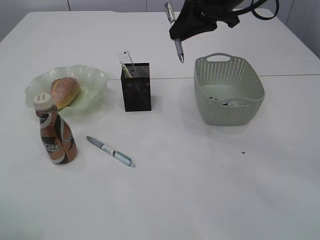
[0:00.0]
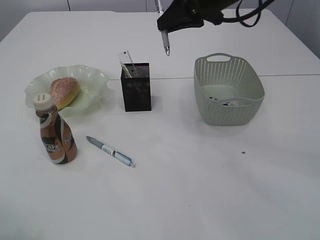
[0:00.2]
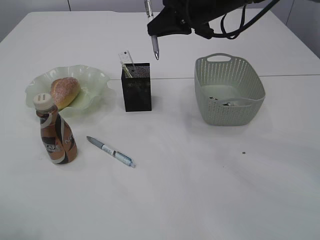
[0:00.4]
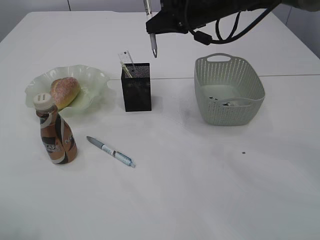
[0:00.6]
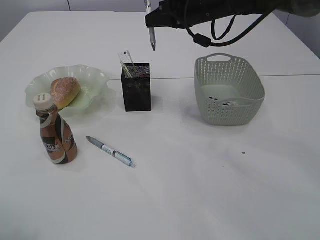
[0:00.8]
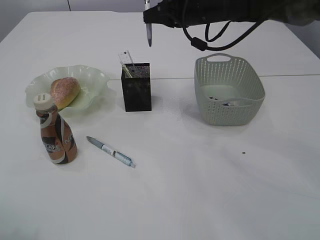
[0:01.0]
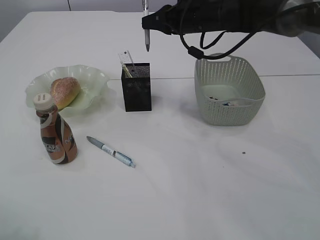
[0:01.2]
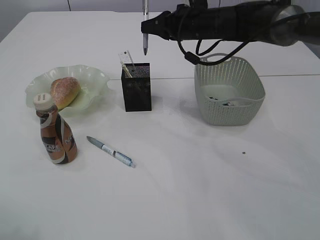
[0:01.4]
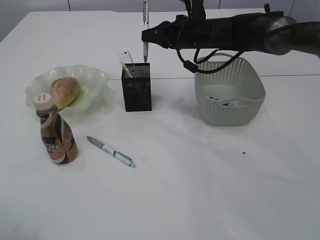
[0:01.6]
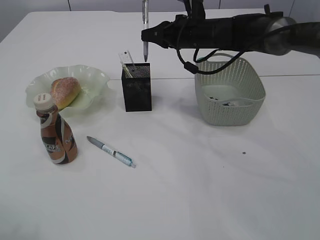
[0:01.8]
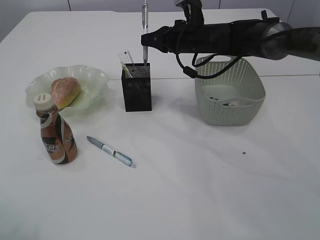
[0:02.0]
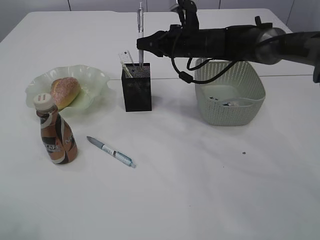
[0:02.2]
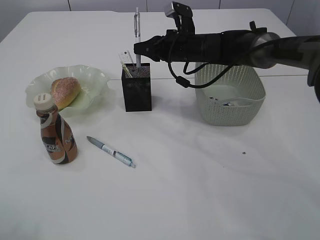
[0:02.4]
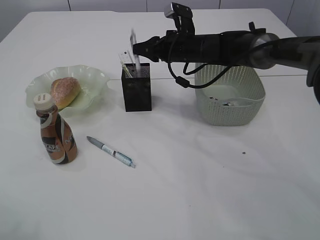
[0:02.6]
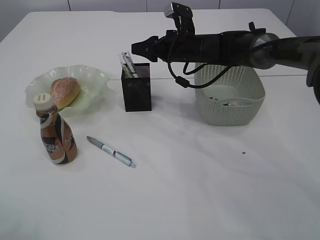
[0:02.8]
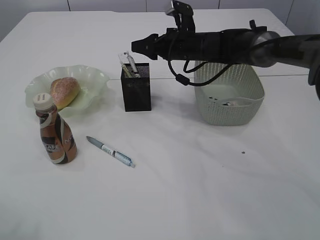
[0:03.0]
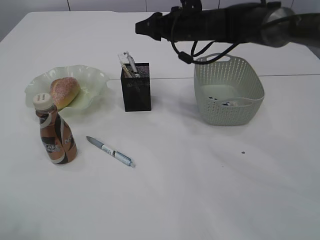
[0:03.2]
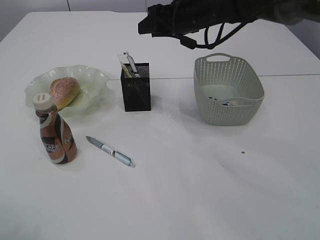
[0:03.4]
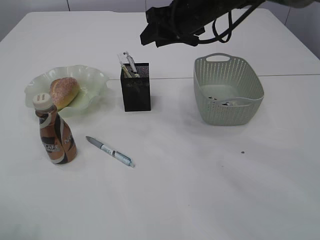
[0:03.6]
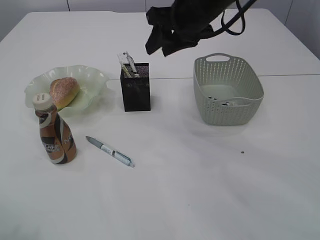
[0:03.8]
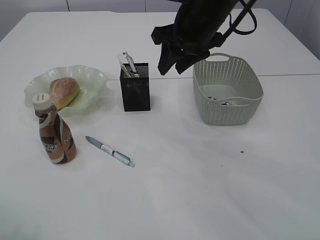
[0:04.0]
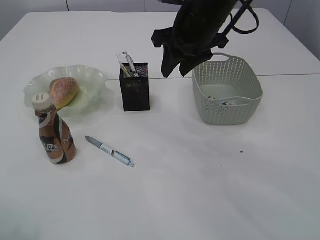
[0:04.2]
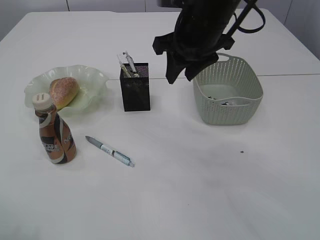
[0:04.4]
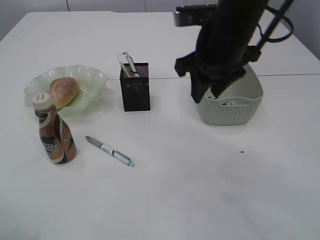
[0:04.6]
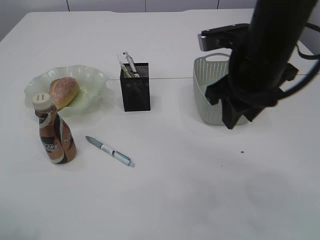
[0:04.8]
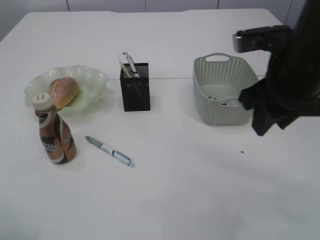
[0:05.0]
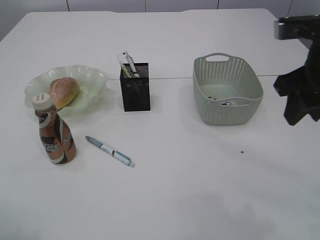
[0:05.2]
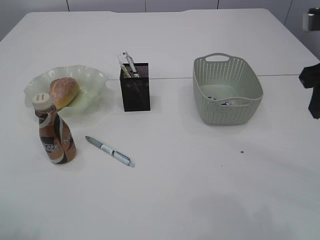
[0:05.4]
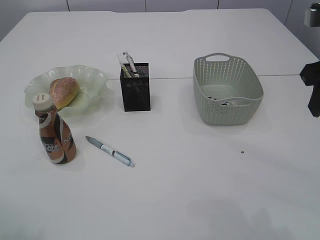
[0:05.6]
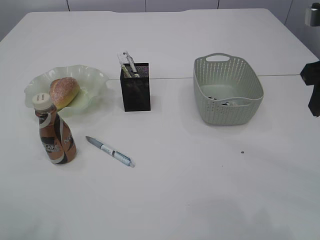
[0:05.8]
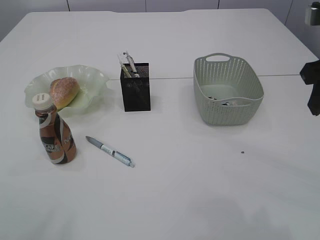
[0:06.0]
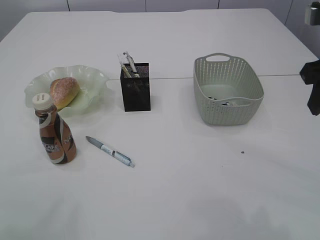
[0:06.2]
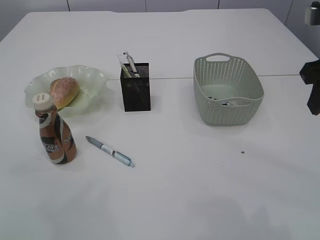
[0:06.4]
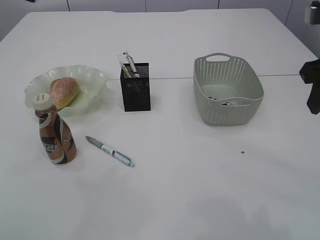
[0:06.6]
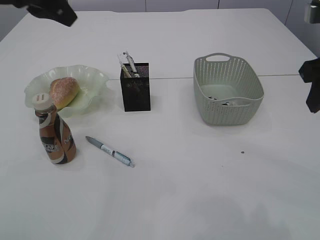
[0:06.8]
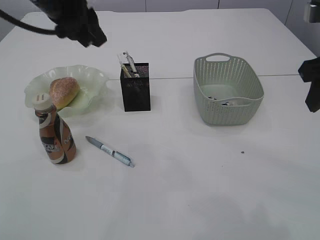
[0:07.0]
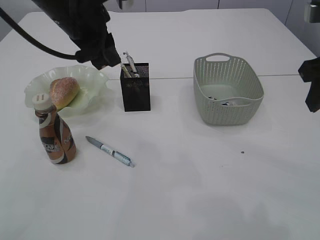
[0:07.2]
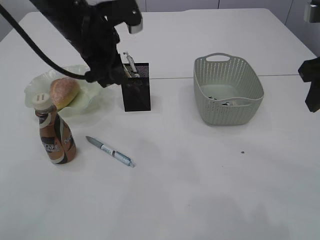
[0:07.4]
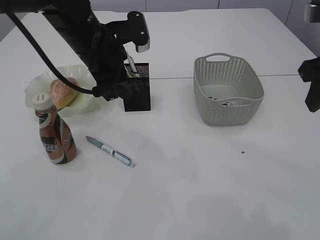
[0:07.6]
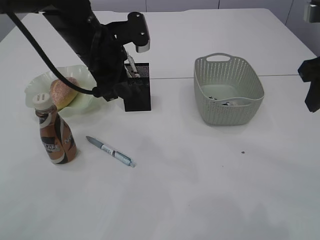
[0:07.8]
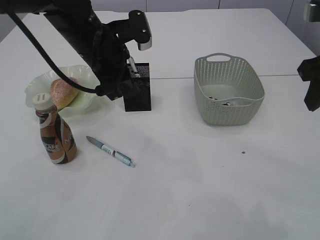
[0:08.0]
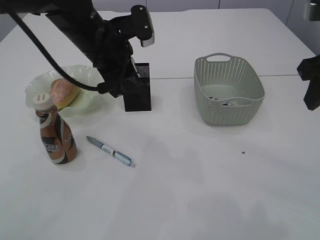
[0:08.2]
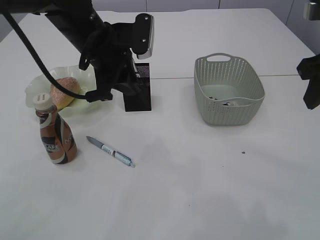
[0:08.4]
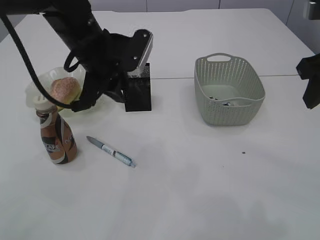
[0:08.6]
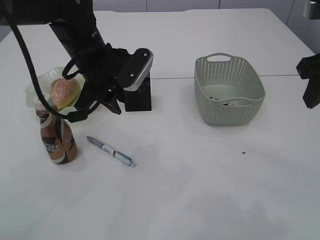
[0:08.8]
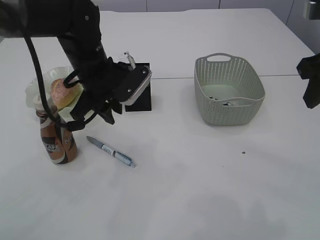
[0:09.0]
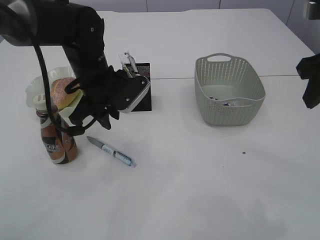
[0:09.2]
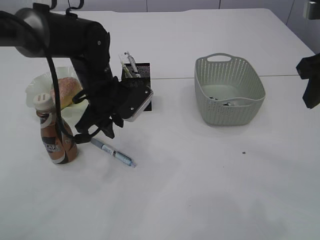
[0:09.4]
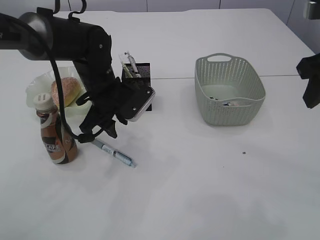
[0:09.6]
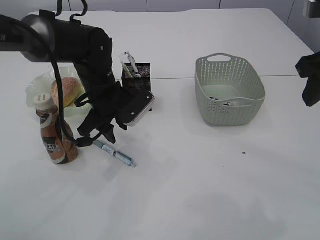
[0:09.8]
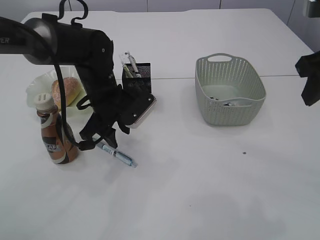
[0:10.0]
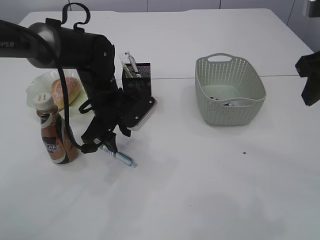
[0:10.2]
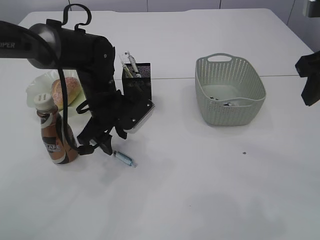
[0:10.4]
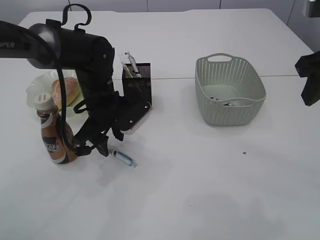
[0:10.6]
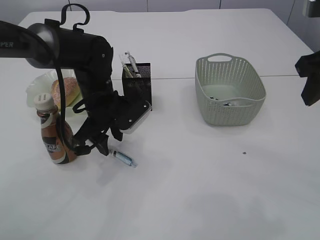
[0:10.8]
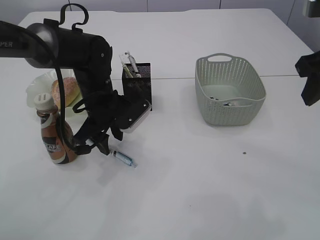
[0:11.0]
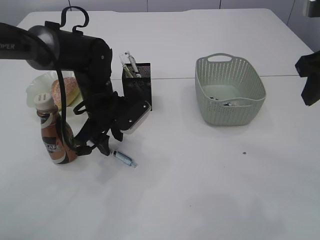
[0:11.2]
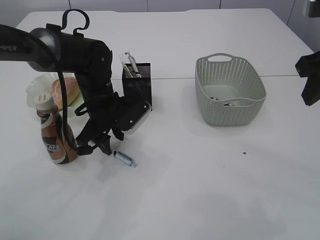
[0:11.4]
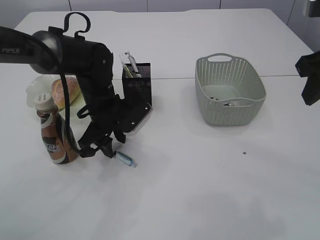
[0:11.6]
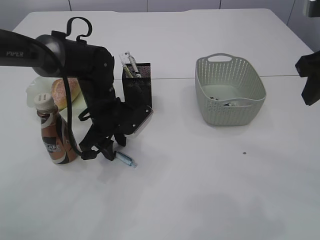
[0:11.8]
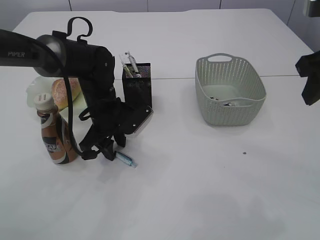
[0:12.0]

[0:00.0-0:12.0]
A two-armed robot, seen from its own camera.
Step, 0:00.0 to 0:03.4: Place the pen into the pen holder.
0:00.0 to 0:01.6: The right gripper travels downward and forward by some 15 cm.
0:01.6 to 0:03.0: The right gripper opens up.
0:03.0 to 0:04.4: The right gripper moves backward and upward, roughly 15 cm.
0:04.4 to 0:06.0: The right gripper travels to the right and backward by roughly 20 cm. Meanwhile the left gripper is displaced upward by approximately 10 cm.
0:06.0 to 0:07.6: The left gripper is displaced to the right, forward and downward by some 30 cm.
0:07.6 to 0:09.0: The left gripper is displaced downward by roughly 5 cm.
0:09.0 to 0:10.4: The left gripper goes some 5 cm downward, and opens.
0:10.4 to 0:12.0: The grippers make only small movements.

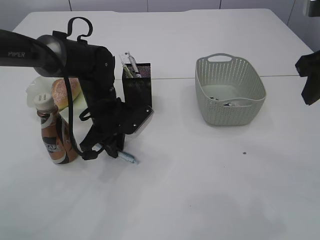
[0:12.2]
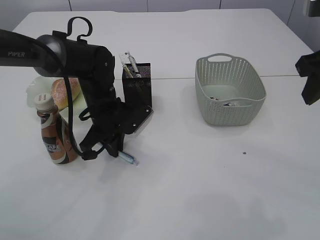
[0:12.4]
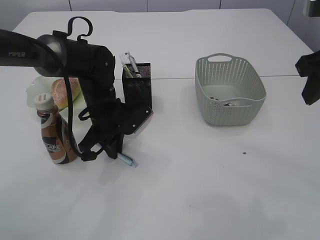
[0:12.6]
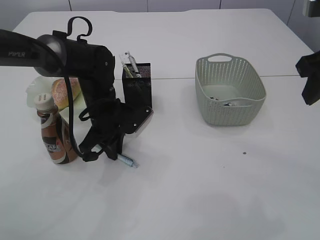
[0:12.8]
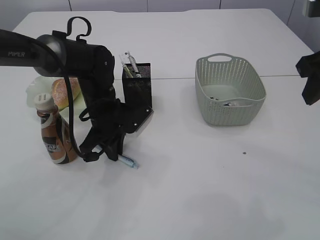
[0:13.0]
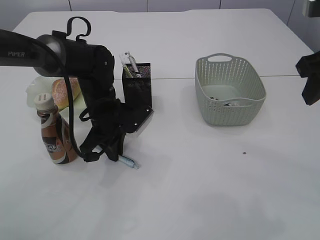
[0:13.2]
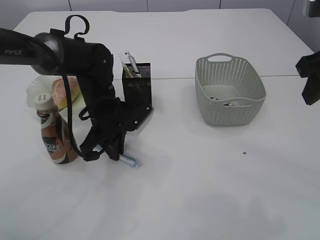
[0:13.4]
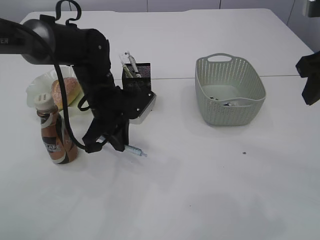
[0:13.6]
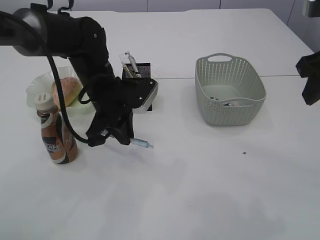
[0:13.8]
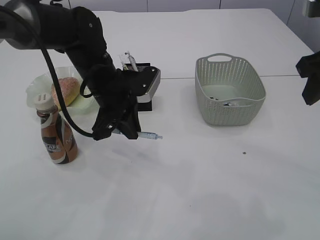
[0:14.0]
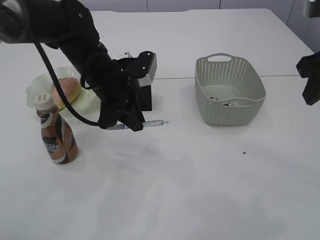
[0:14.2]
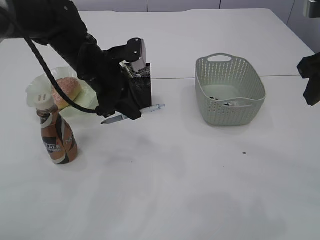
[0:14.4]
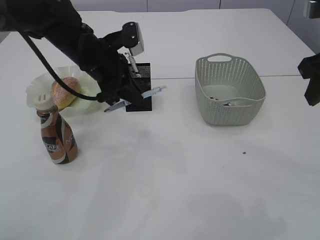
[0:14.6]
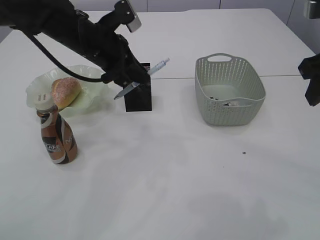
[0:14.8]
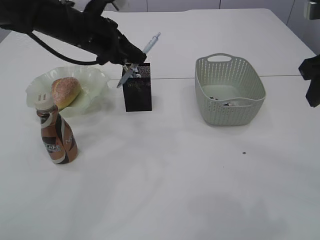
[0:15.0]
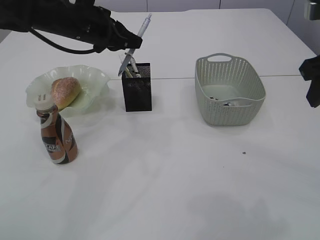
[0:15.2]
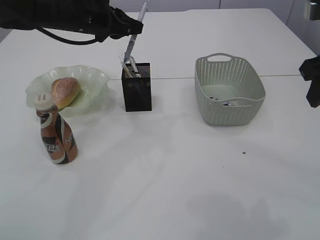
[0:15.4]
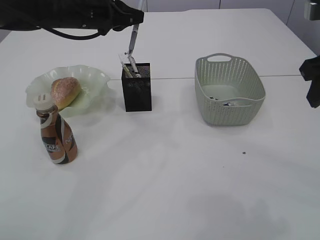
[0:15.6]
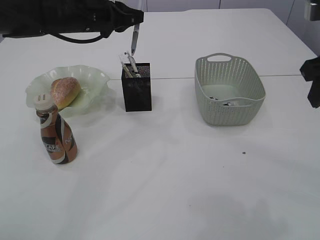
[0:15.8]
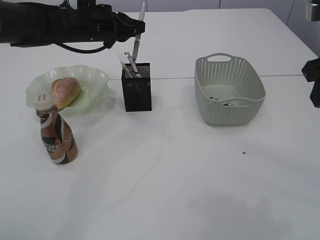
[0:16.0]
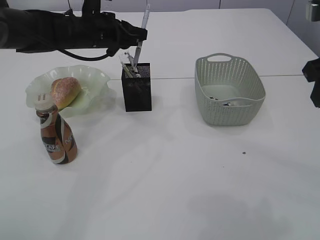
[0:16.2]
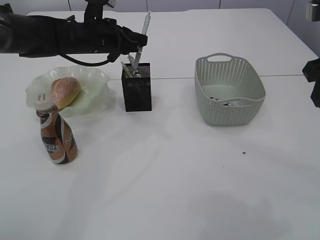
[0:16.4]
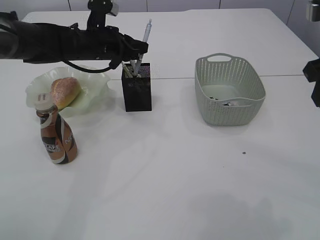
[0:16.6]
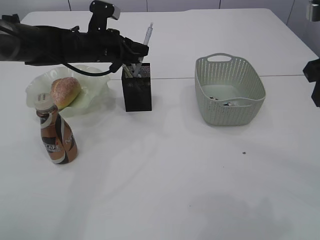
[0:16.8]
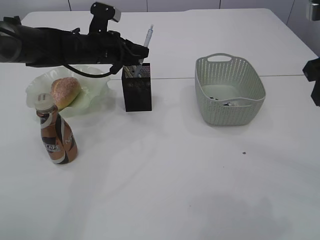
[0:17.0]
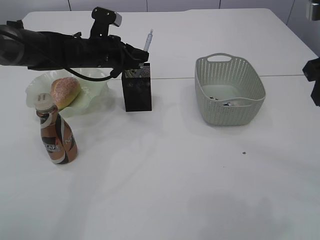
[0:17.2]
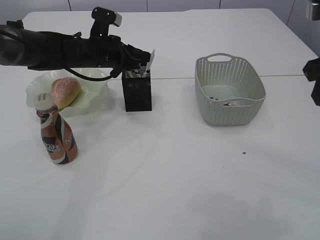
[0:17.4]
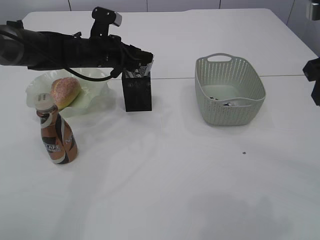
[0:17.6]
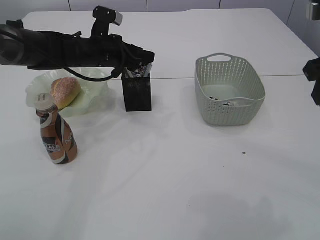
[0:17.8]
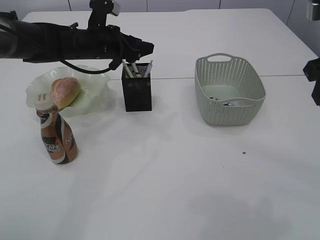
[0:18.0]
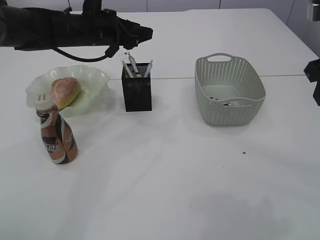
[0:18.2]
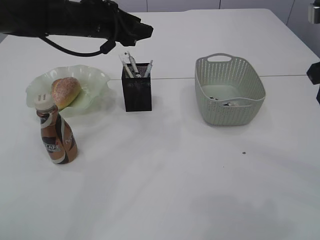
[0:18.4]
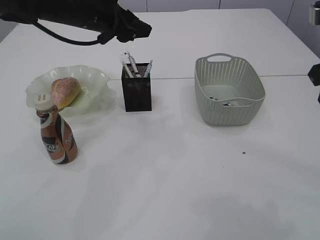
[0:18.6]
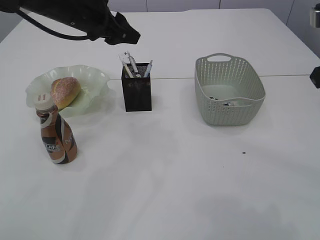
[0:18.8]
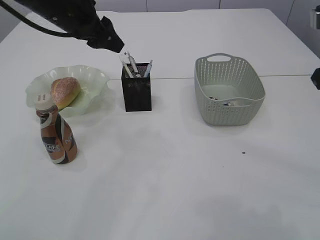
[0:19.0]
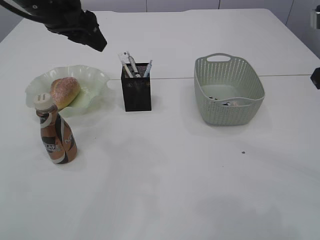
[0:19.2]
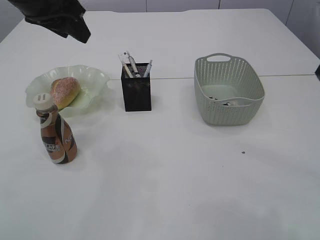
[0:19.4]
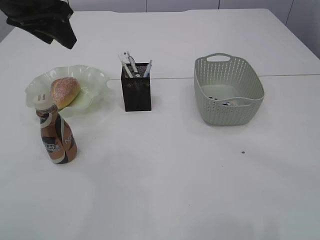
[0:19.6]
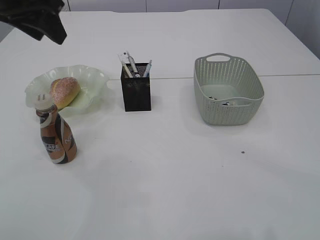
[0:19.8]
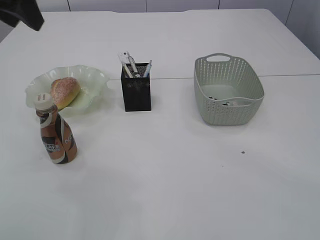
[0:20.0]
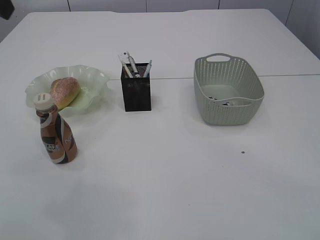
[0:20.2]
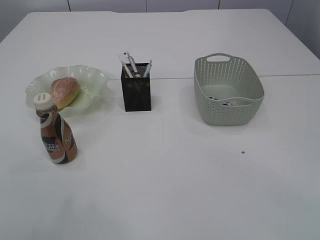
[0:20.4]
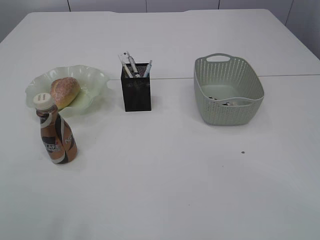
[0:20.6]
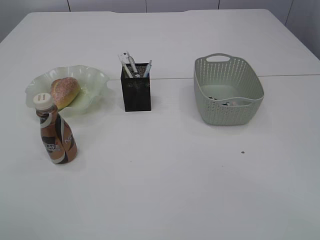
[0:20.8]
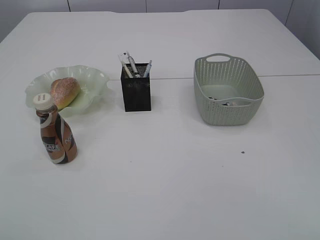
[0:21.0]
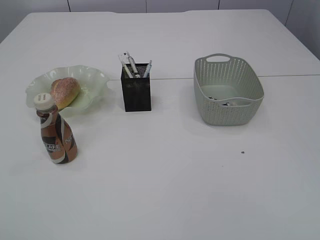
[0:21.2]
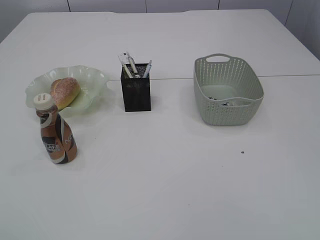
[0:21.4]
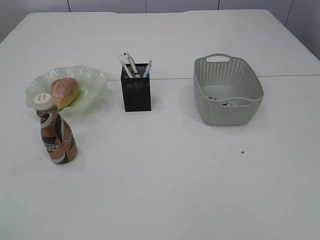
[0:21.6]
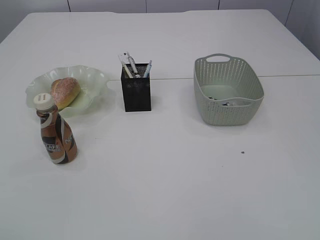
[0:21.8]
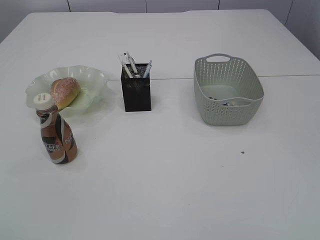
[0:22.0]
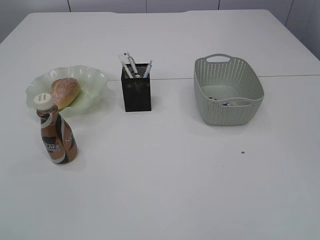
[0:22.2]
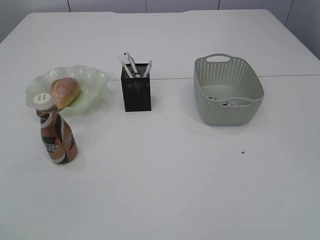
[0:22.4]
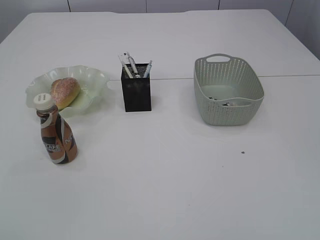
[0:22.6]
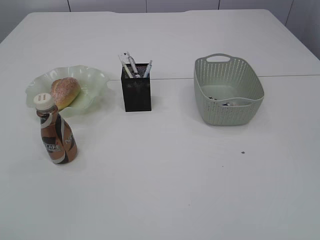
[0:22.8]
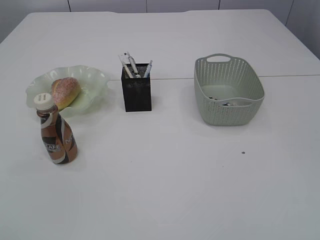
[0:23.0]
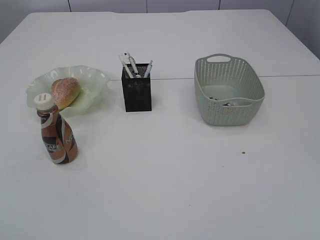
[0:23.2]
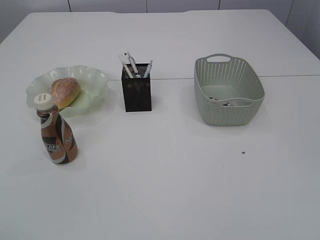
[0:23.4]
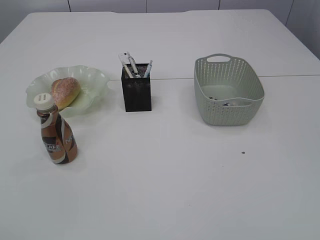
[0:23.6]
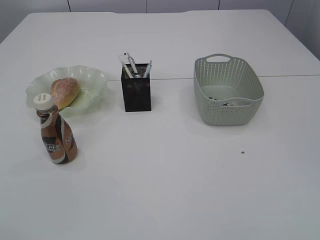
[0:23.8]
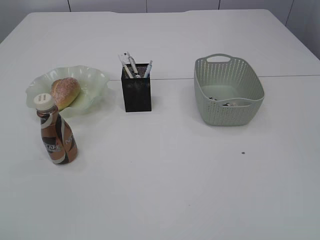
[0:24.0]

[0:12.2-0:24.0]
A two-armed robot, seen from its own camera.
Step, 0:13.8 to 0:18.0: Place the pen into the pen holder.
0:12.2 to 0:13.6: The grippers move only a little.
0:13.6 to 0:15.2: The left gripper shifts roughly 15 cm upward and forward.
0:15.2 to 0:16.6: The left gripper shifts some 5 cm downward.
0:16.6 to 0:18.2: The left gripper opens its fingers.
0:18.2 to 0:19.6: The left gripper shifts roughly 20 cm upward, backward and to the left.
0:19.6 to 0:21.0: The left gripper goes about 25 cm backward and to the left.
